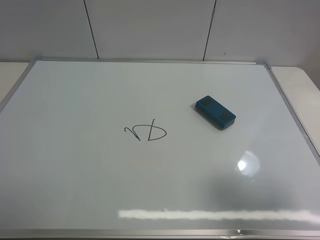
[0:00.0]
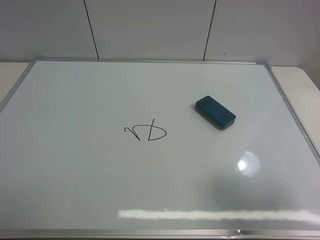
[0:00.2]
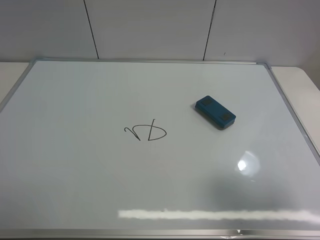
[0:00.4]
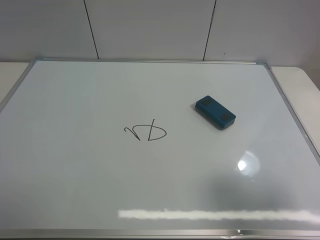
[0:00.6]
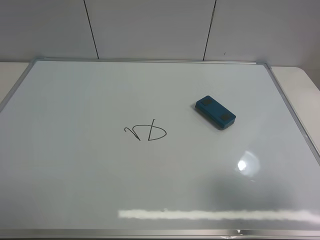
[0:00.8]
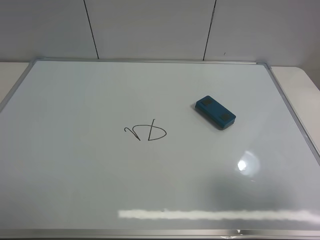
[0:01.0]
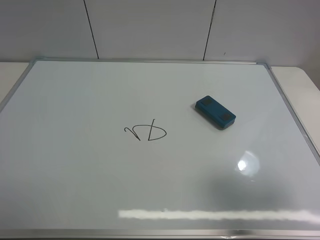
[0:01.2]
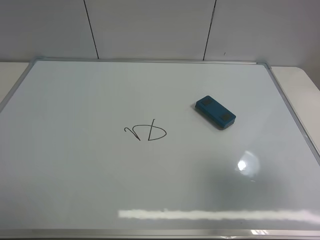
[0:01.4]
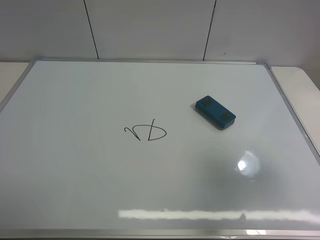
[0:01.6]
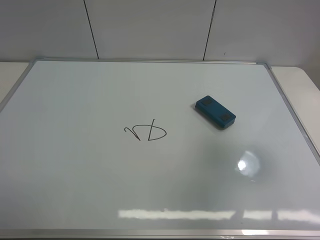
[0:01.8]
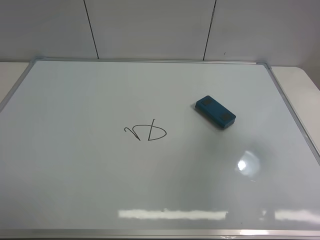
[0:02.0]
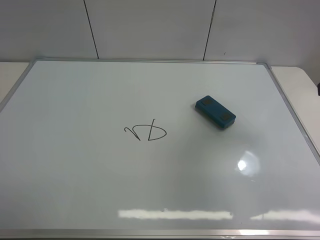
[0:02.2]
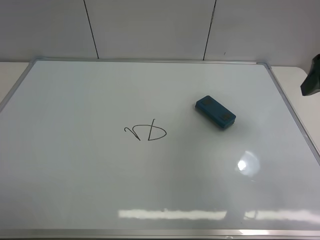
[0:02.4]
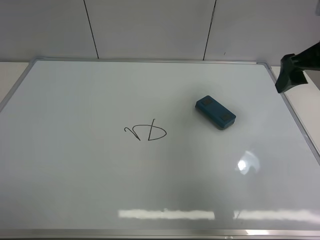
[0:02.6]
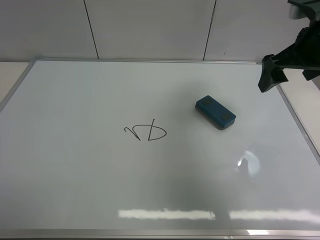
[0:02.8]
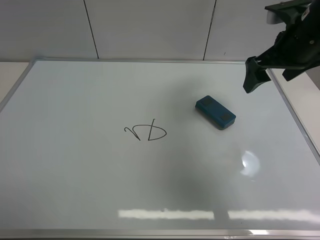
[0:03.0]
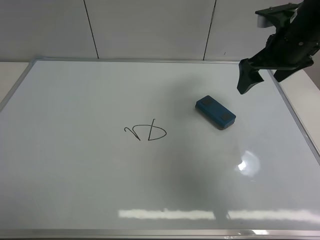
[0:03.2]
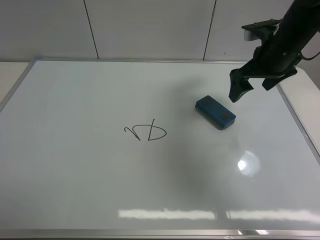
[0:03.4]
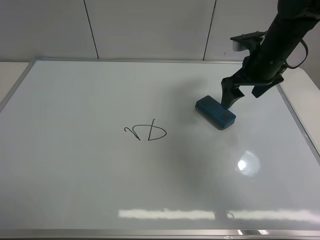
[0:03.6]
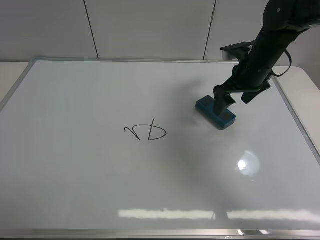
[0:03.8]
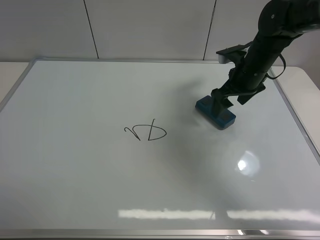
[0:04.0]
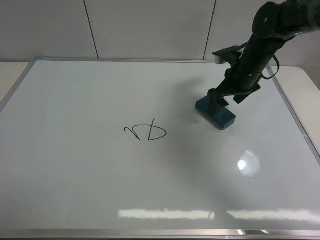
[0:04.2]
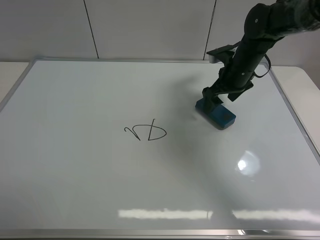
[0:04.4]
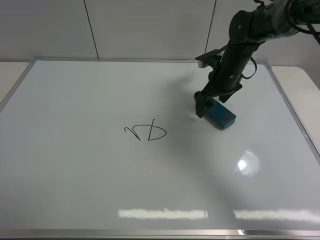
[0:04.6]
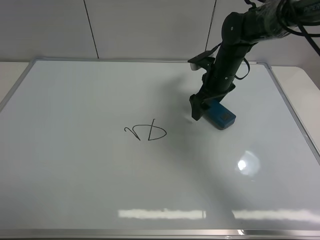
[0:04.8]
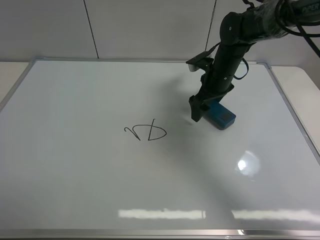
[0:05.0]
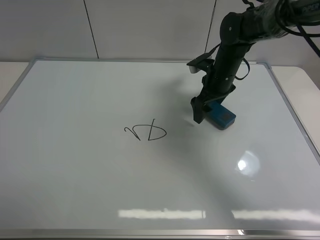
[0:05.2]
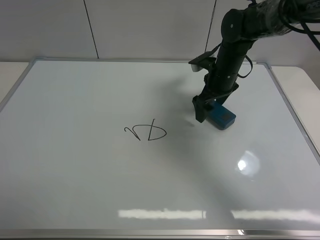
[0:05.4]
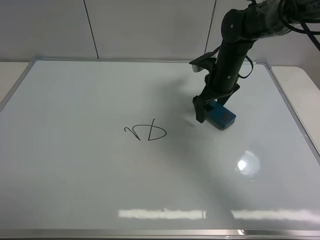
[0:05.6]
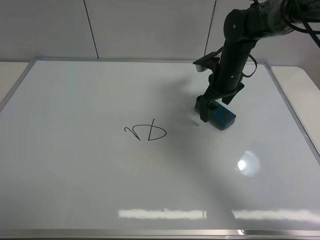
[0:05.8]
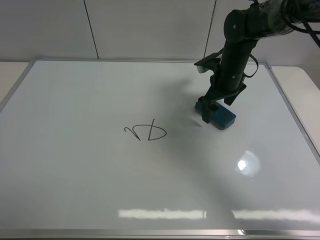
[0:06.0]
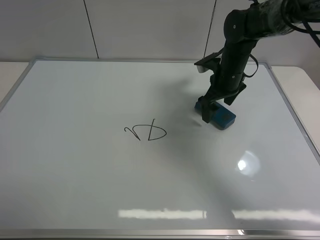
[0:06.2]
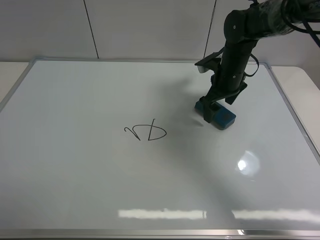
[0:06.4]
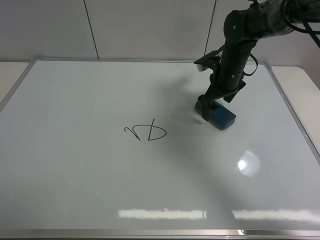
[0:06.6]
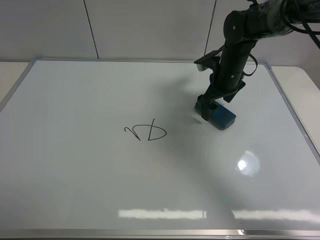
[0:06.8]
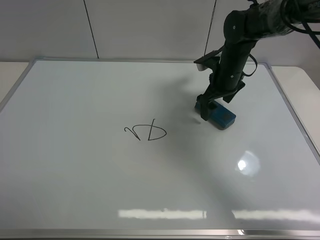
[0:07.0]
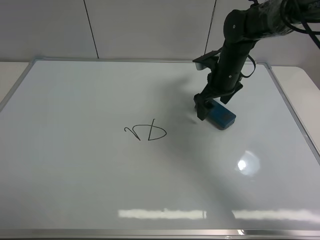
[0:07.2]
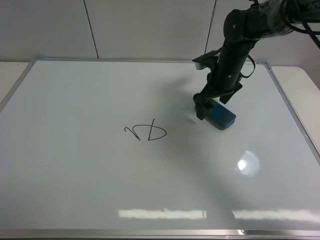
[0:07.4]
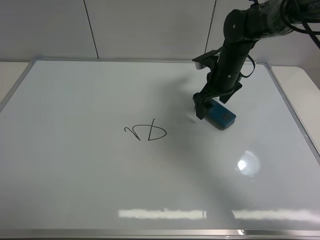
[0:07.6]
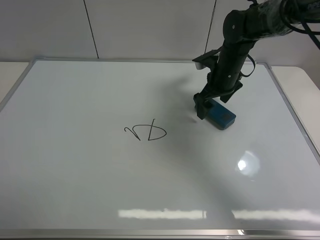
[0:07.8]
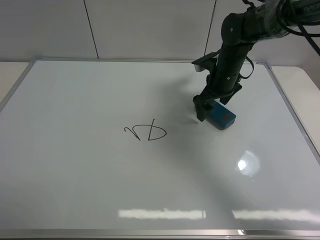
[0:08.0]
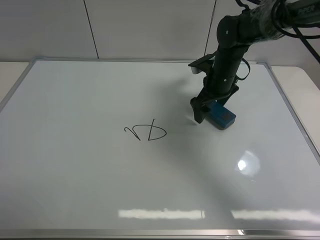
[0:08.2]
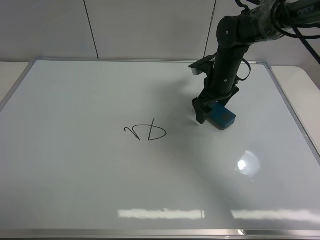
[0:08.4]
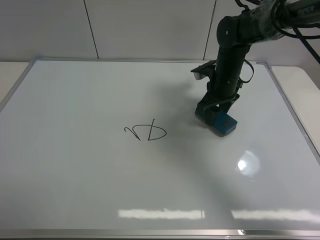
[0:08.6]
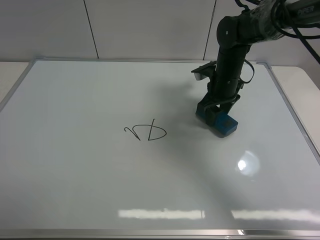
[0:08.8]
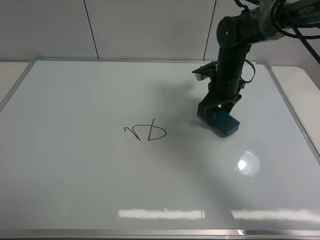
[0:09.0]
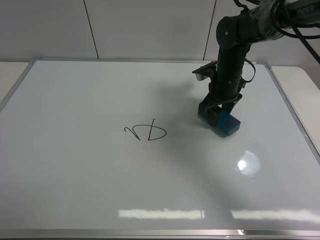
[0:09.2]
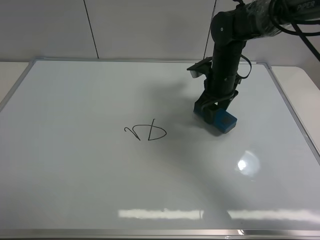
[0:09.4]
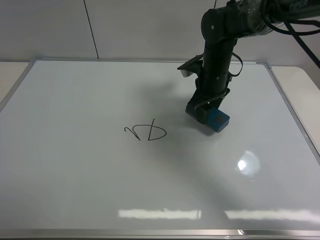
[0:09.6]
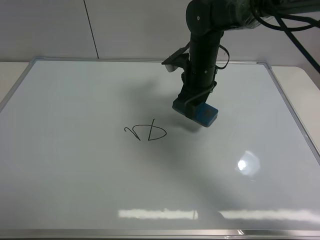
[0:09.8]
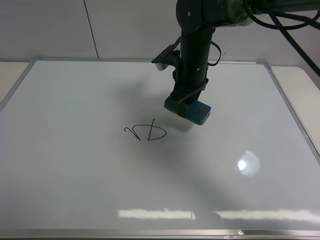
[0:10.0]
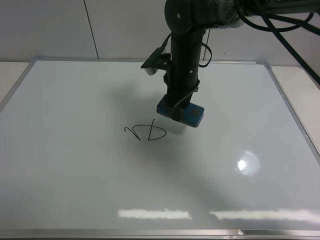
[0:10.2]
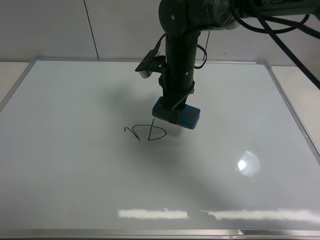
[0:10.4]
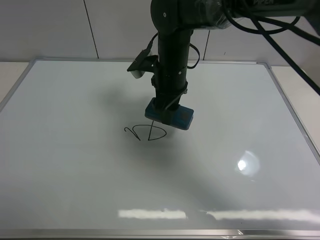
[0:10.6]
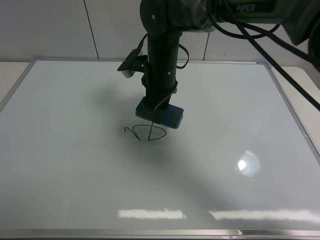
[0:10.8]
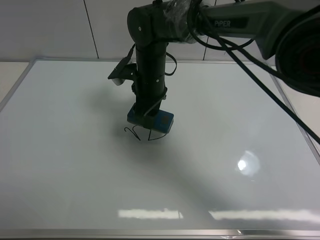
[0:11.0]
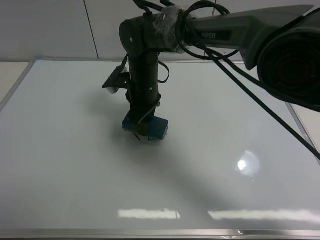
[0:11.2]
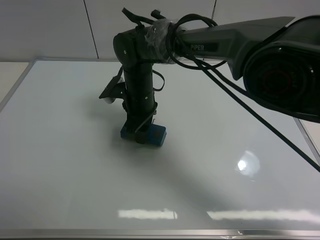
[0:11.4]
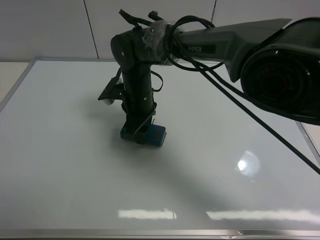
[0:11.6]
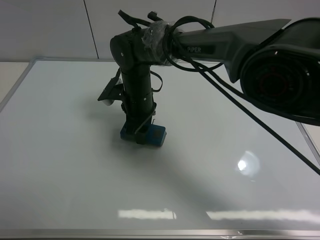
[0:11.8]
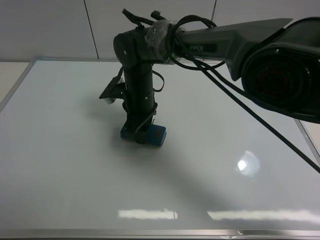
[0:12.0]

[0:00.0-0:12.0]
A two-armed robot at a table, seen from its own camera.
Task of the whole recording: use the right gripper to pick up the board eraser, wipe the notes on the whiteboard clean, and then put them back in place.
Step, 0:00.0 to 0:09.6: Pick up the board eraser with right gripper.
0:00.0 to 0:01.6: The right gripper shifts approximately 5 cm forward.
0:01.6 to 0:03.0: The right gripper moves forward, approximately 25 cm.
0:03.0 to 0:04.4: The right gripper moves downward, forward and to the left, roughly 15 cm.
0:04.4 to 0:07.6: The grippers stay close to where they were, moving slightly.
0:07.6 to 0:09.0: The right gripper closes.
0:09.0 to 0:10.4: The right gripper shifts about 10 cm to the left.
0:10.4 to 0:12.0: The right gripper moves to the left and downward, some 10 cm.

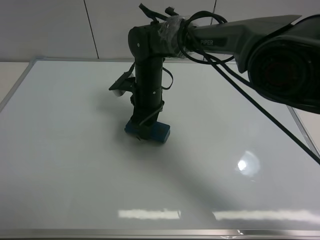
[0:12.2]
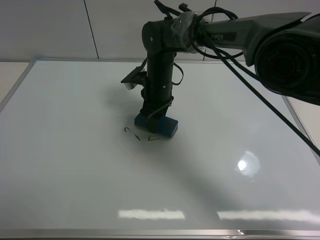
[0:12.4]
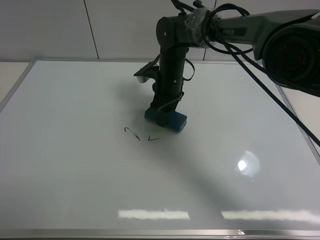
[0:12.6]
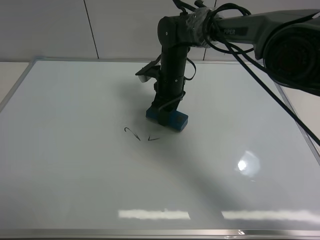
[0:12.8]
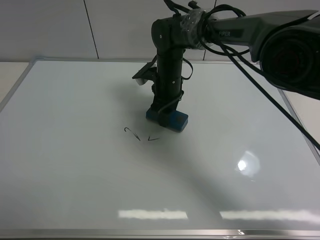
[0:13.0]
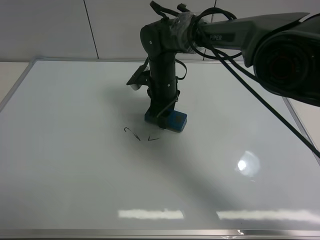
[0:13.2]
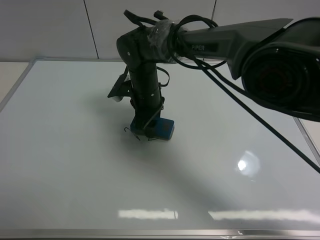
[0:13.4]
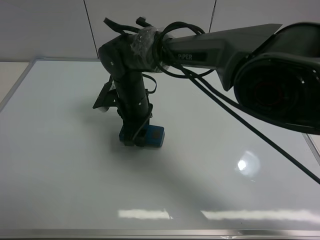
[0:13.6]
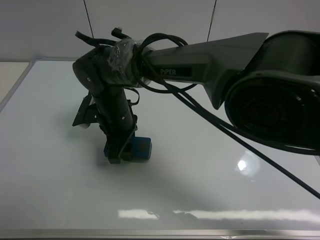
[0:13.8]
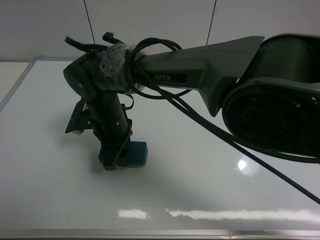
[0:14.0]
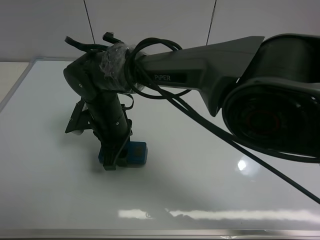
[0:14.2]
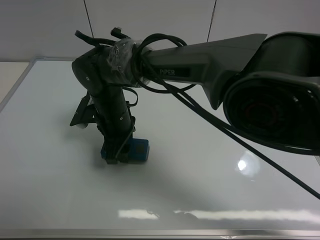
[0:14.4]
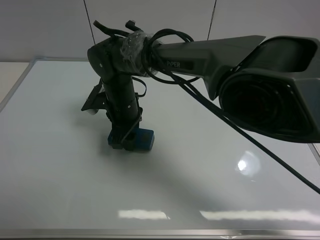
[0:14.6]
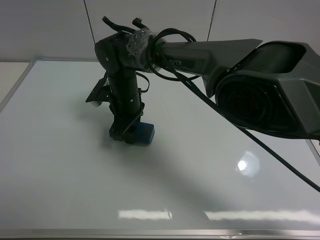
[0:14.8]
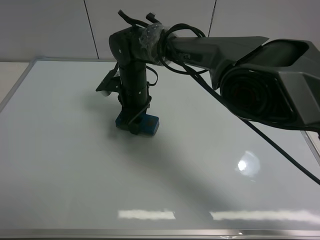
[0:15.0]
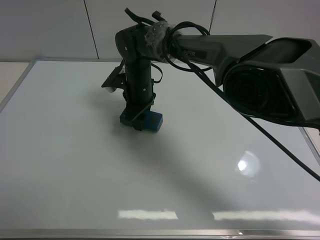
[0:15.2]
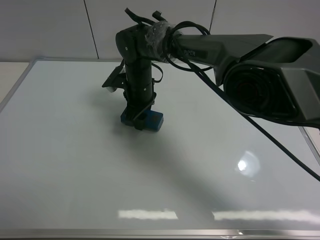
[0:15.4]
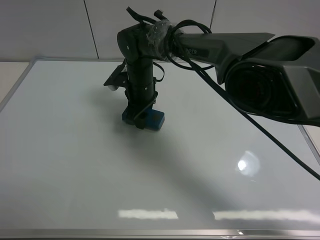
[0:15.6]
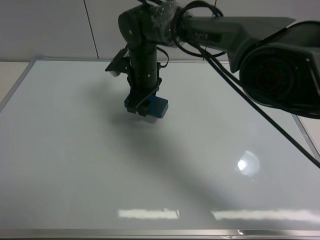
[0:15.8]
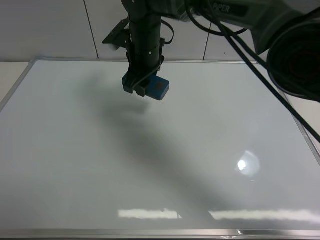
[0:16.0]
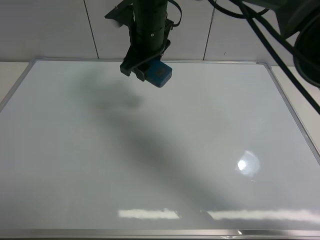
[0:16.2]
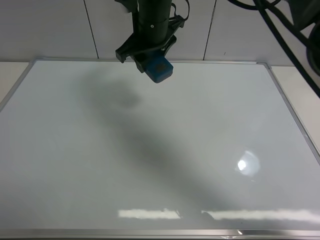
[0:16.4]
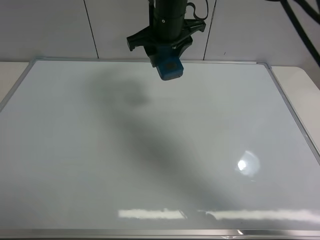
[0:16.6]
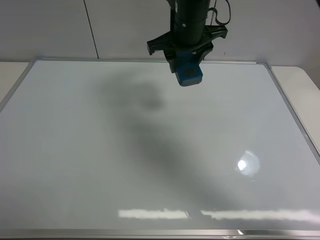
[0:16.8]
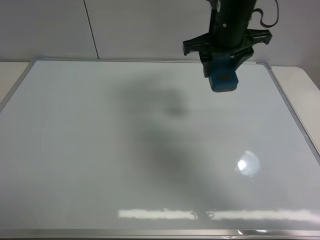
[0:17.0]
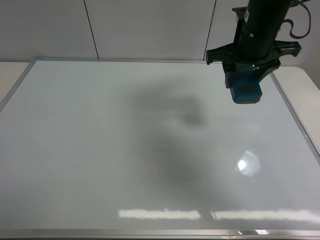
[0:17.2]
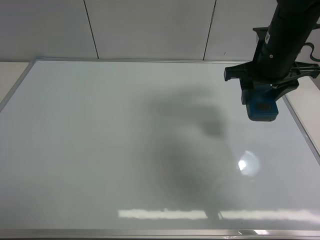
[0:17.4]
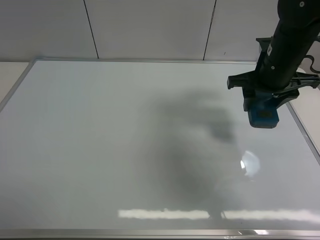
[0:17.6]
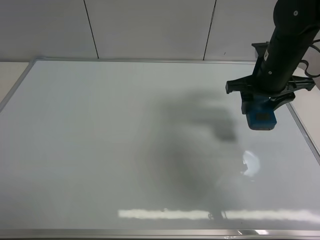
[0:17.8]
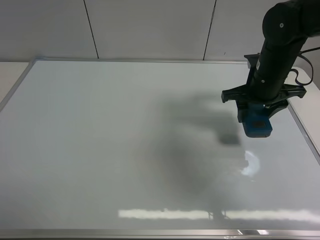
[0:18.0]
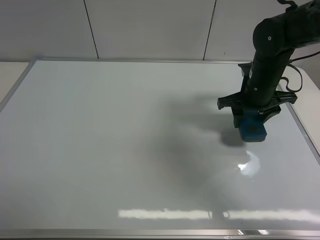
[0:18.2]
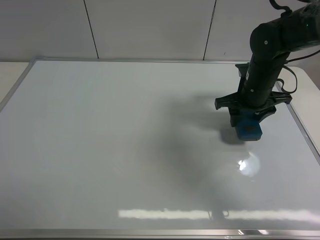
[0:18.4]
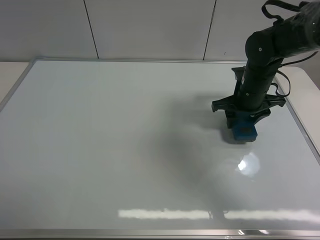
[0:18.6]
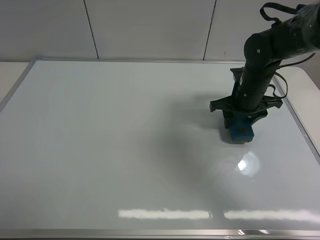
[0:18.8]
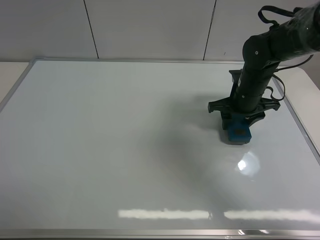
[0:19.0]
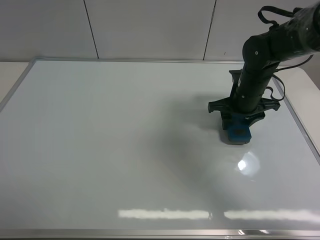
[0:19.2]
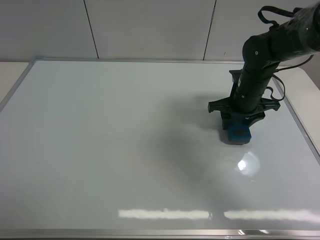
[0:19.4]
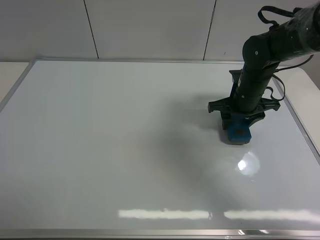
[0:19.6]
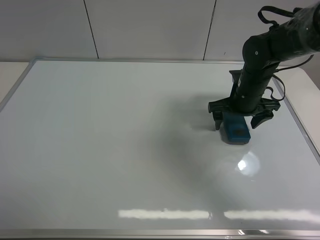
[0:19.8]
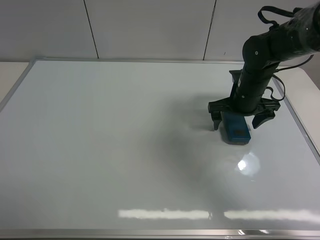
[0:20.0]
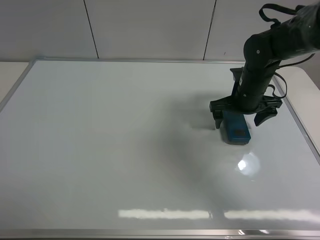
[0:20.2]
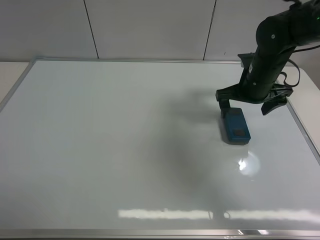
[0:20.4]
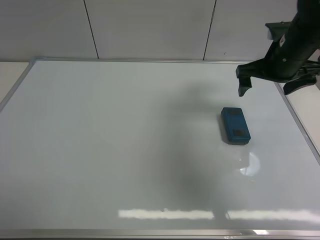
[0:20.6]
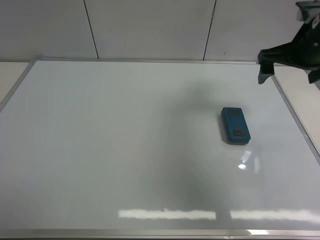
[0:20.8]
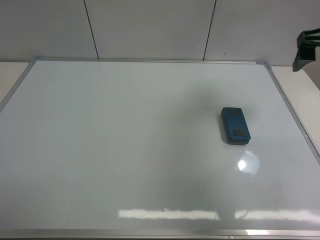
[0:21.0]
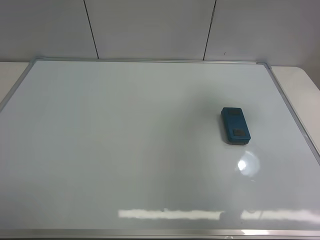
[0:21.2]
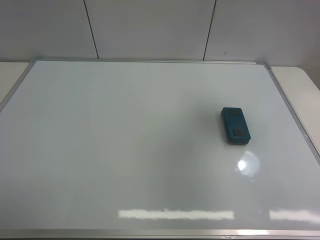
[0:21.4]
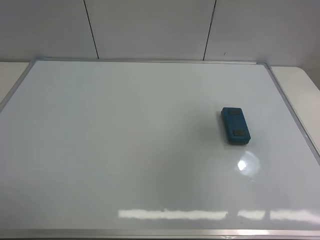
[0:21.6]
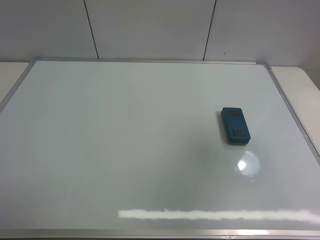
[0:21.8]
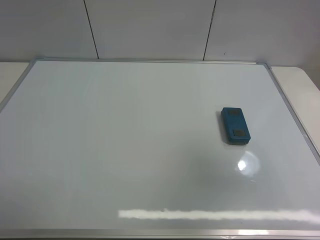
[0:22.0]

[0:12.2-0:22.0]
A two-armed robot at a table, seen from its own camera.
Task of the whole recording: use the right gripper to pick up the board eraser, wipe the notes on the whiteboard clean, and then put them back in place.
Step, 0:12.2 to 0:15.8: Wipe off the writing on the board with right gripper.
Step, 0:16.0 to 0:19.6: Place the board eraser on the right side of board with right gripper.
0:12.2 to 0:13.6: The right gripper changes place by about 5 cm.
0:13.6 to 0:15.0: The right gripper goes approximately 5 cm forward.
0:15.0 to 0:16.4: The right gripper travels upward by roughly 15 cm.
0:16.4 to 0:17.8: The right gripper shifts roughly 25 cm to the right.
0:17.8 to 0:19.2: The right gripper goes roughly 10 cm downward.
0:19.2 to 0:20.6: The right gripper heads upward, covering about 10 cm, and opens its fingers.
0:20.6 to 0:22.0: The right gripper heads backward and upward, covering some 35 cm.
